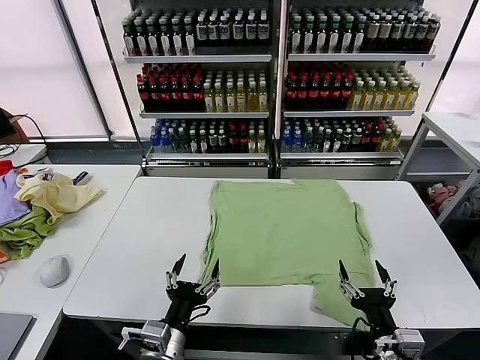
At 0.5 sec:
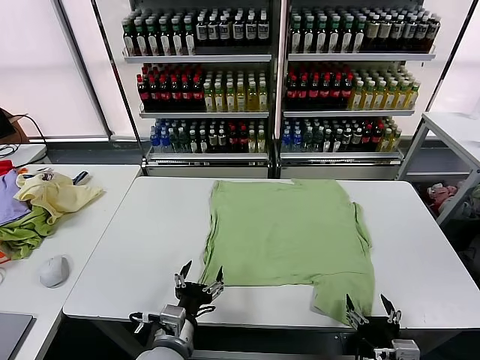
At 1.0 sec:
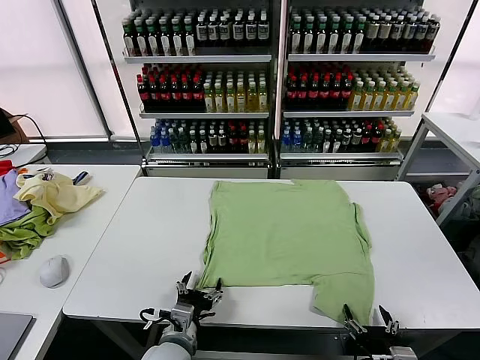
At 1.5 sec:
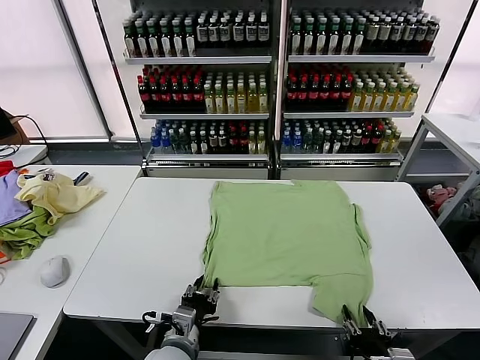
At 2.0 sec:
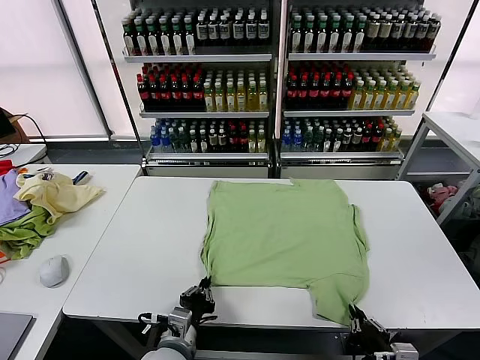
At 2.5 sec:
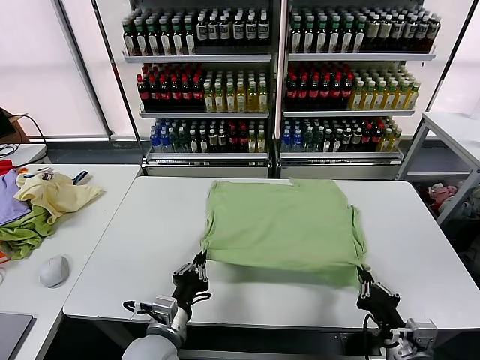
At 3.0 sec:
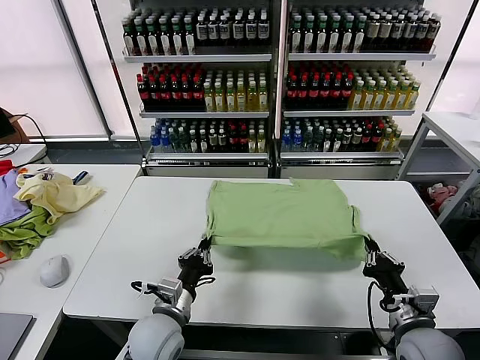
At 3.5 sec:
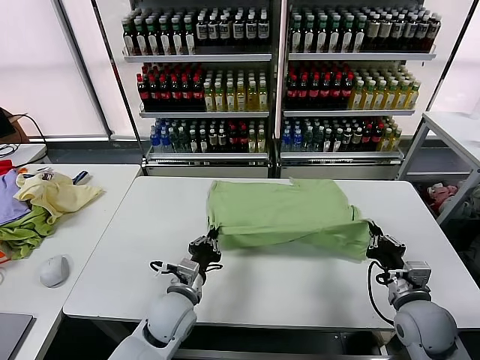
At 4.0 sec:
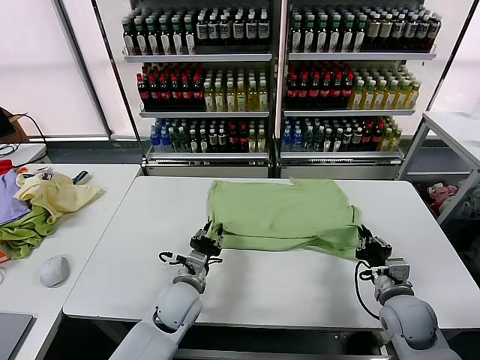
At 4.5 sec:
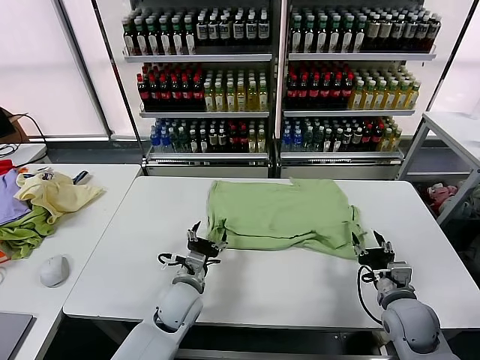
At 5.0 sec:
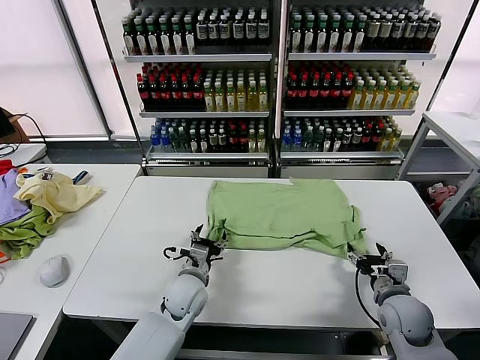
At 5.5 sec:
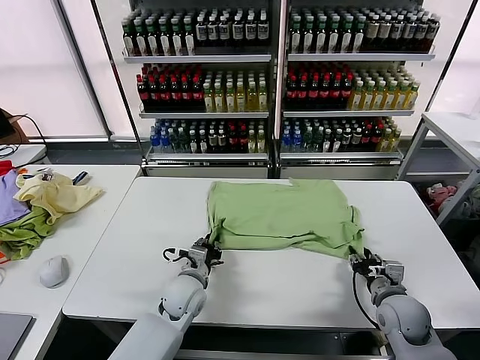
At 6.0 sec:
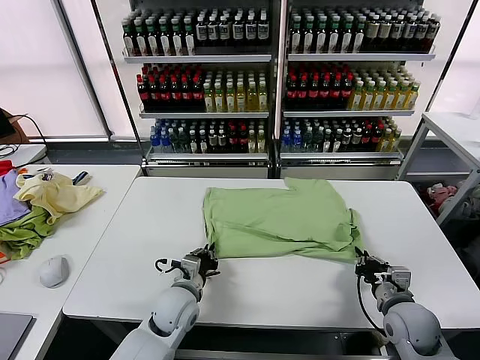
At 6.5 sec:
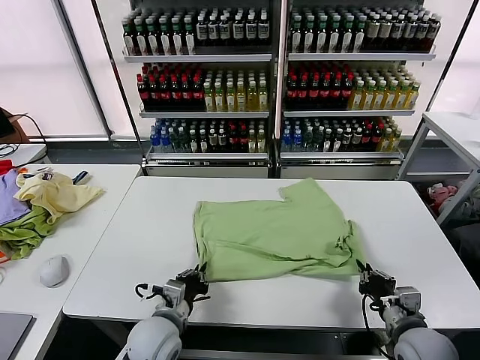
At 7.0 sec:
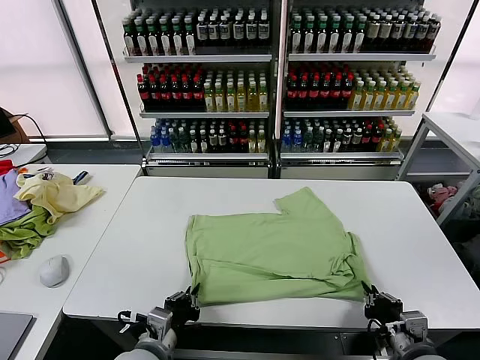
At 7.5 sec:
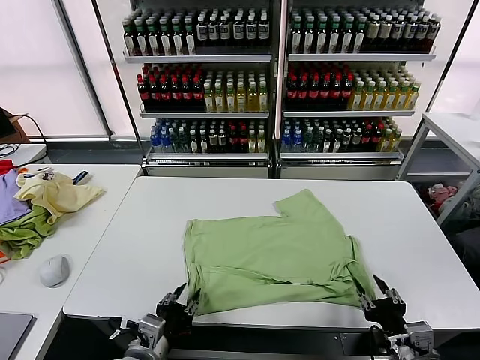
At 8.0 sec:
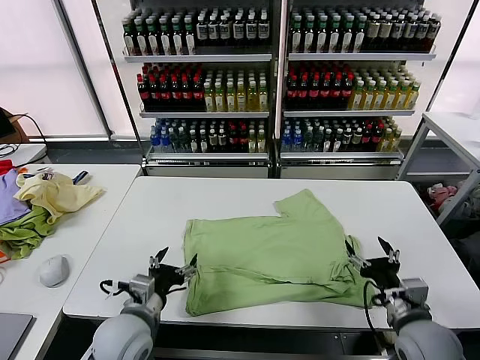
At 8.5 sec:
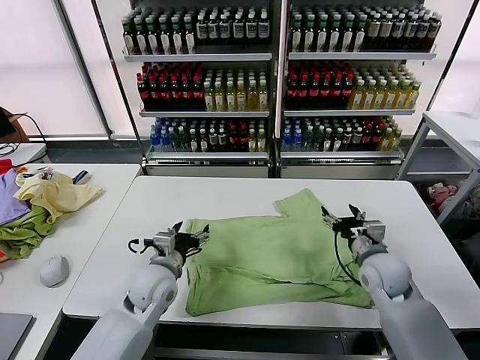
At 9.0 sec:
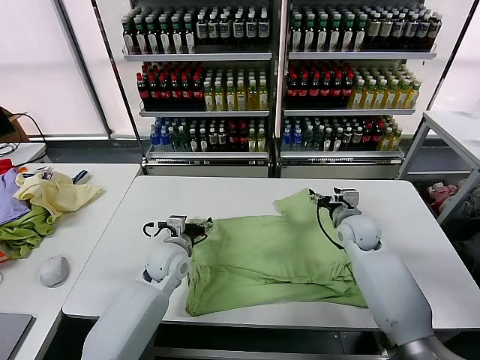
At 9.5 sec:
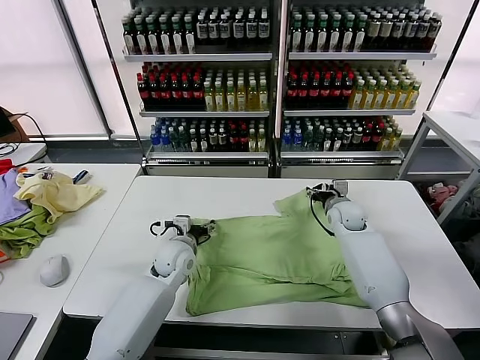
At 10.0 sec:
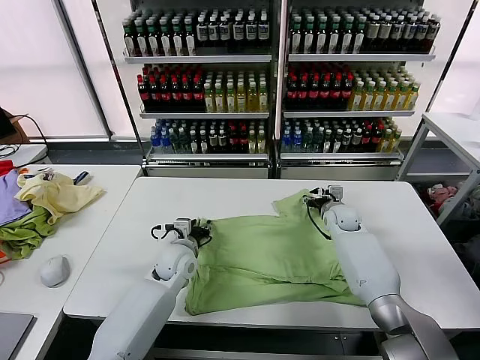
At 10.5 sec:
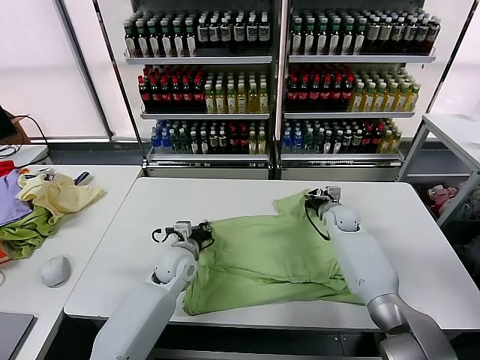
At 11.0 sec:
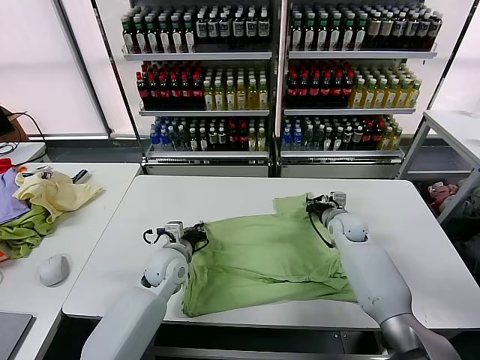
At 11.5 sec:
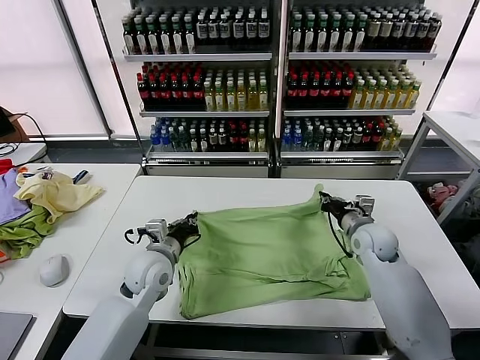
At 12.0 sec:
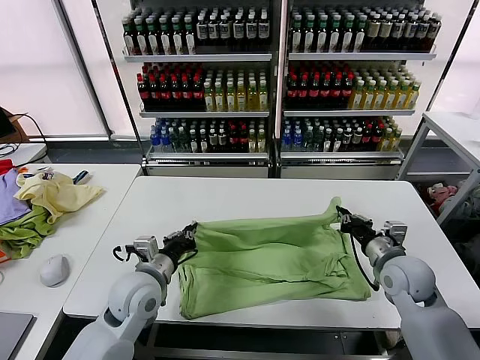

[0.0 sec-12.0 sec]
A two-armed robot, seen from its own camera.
Task of the whole recording: fold and organize the clothes.
Step, 0.0 sec to 2.0 sec: use both grippers simultaneously to clamp the lower edge of the clothing fabric.
Step, 2.5 sec to 4.0 sec: use both grippers to drag the lower edge of the fabric forward and fold it over the upper edge.
Step, 4.5 sec to 7.5 sec: Drag the clothes downward with both gripper.
Step, 8.0 sec to 10.5 sec: use both grippers simultaneously to clamp the upper edge of the clothing fabric.
2.0 sec to 4.0 sec: Both grippers move forward, some 15 cm. The left gripper opens.
4.0 sec to 6.0 sec: The left gripper closes its fingers. The right gripper opens, then closes once more.
6.0 sec to 8.0 sec: The right gripper moves approximately 10 cm backward and comes back, and opens. Meanwhile the left gripper travels backward, upward and to the left by some 15 cm, and opens its fingers.
8.0 sec to 10.0 sec: The left gripper goes approximately 20 cm forward, and closes, while the right gripper travels forward by about 30 cm.
10.0 sec to 12.0 sec: The right gripper travels backward by some 20 cm, and closes up; the left gripper is displaced backward and upward by approximately 15 cm, and closes its fingers.

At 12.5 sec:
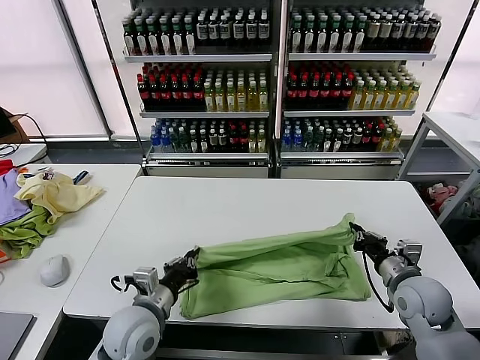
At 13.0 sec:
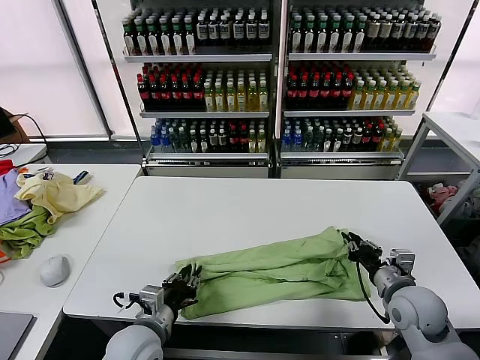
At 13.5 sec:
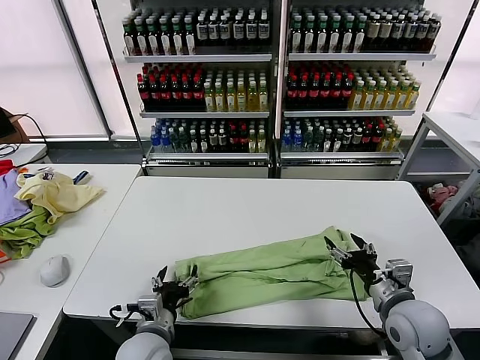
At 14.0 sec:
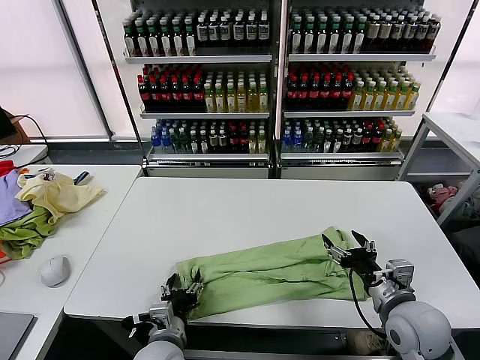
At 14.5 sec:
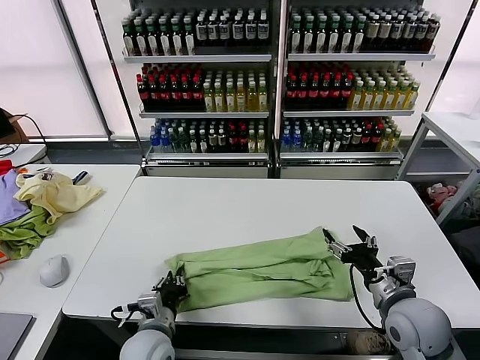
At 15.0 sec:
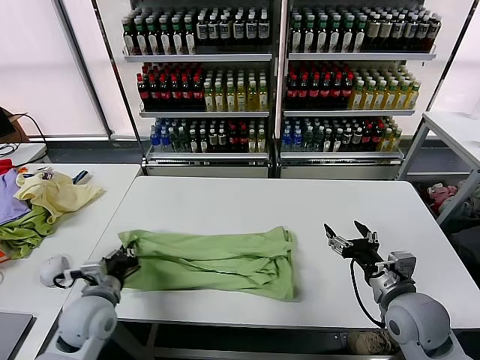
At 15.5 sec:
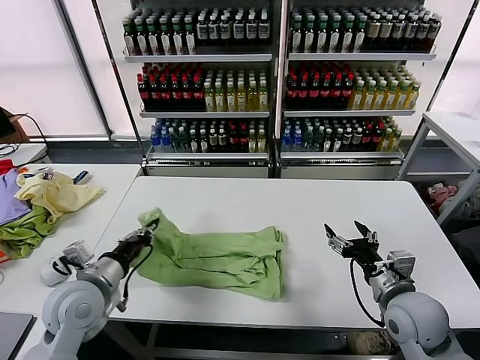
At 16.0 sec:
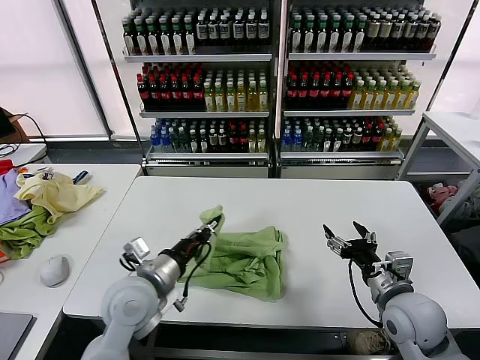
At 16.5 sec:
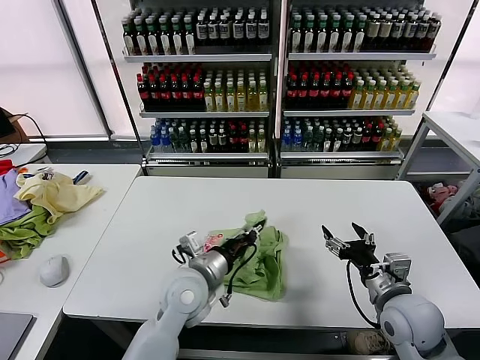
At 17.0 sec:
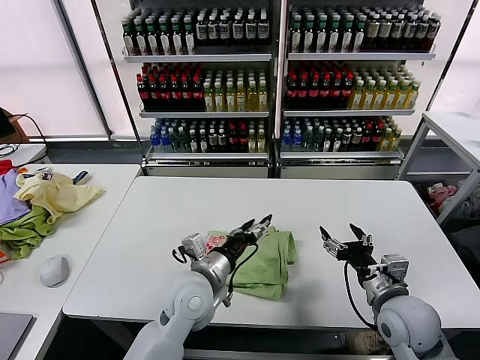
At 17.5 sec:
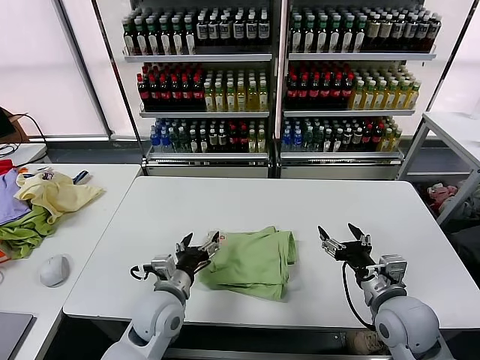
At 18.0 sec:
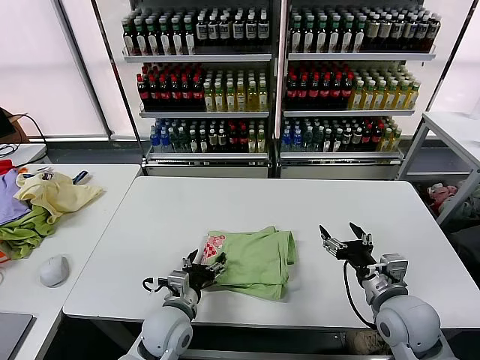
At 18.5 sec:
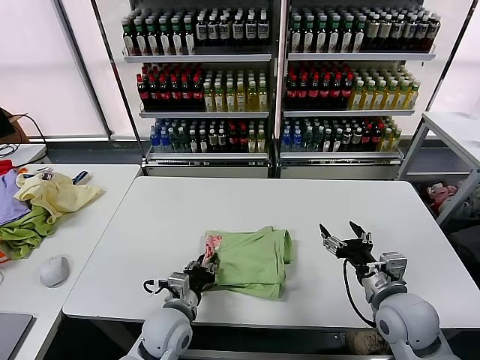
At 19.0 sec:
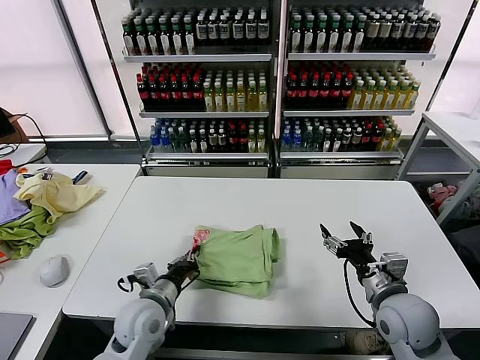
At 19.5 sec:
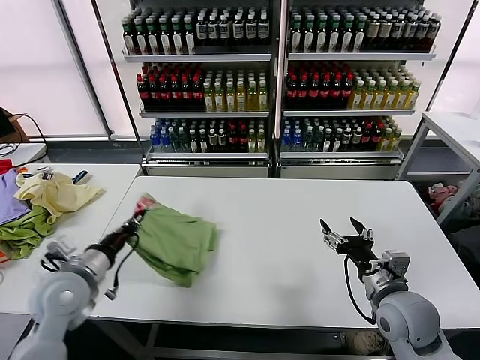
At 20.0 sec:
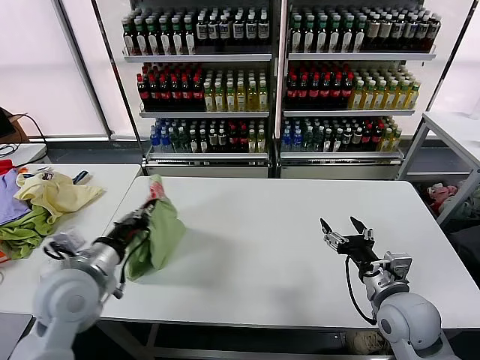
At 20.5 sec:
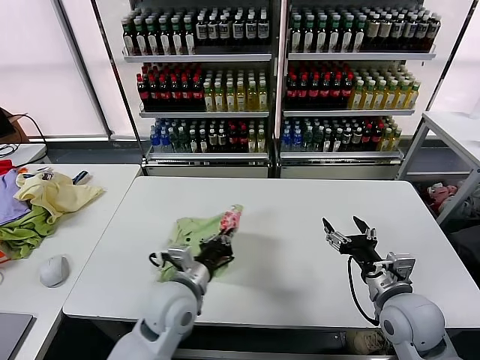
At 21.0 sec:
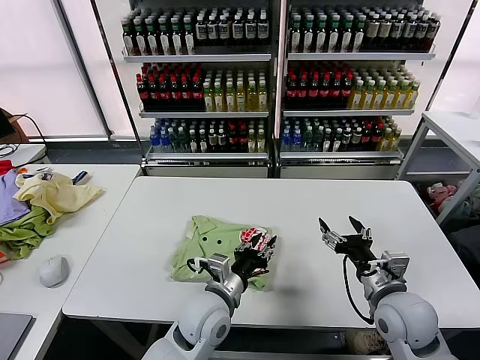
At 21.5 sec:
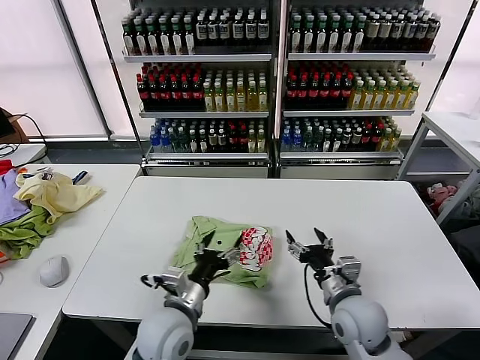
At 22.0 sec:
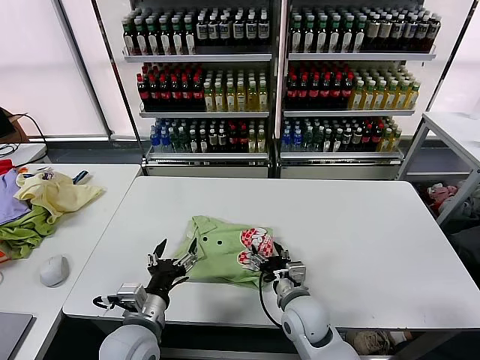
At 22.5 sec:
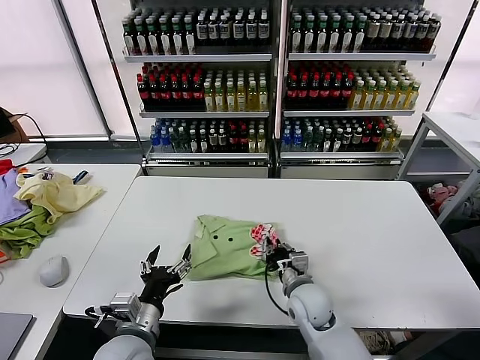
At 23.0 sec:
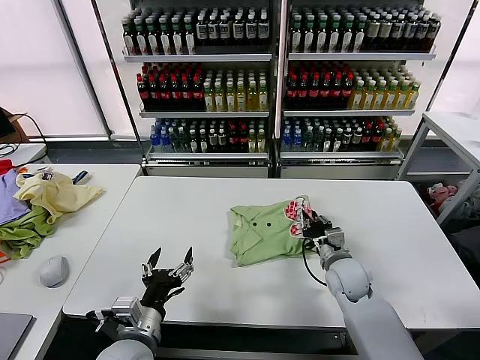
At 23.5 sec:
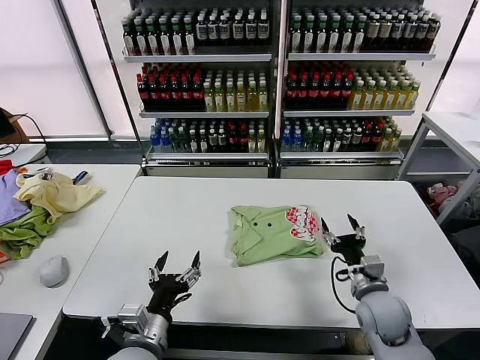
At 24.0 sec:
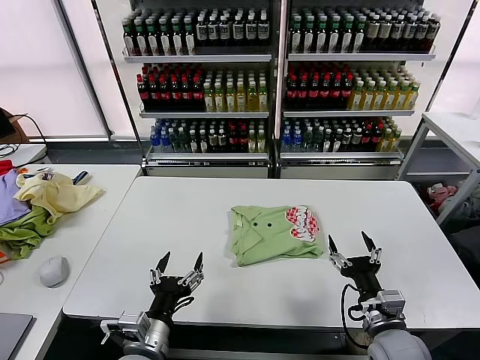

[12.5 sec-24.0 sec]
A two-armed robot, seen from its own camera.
Task of the whole recording: fold and organize the clothes.
Step, 13.5 sec to 14.5 sec: use the left gripper to clamp the left edge of the fabric.
Step, 15.0 sec to 16.5 sec: use the left gripper to drag the left edge of the fabric to the left and folds it over the right edge.
Step, 17.0 sec to 21.0 sec: Flip the folded clothes over with left gripper.
Step, 21.5 sec to 23.0 sec: Drag the clothes to the center of the table.
12.5 sec to 14.5 sec: The right gripper moves backward, approximately 5 cm, and opens, while the left gripper heads downward, covering about 5 cm, and opens and closes again.
14.5 sec to 16.5 sec: The left gripper moves upward and forward, some 15 cm, and moves approximately 10 cm to the left and comes back.
16.5 sec to 18.5 sec: The left gripper travels downward by approximately 10 cm, and opens, then closes again.
18.5 sec to 20.0 sec: The left gripper heads upward and to the left, covering about 25 cm, and closes.
20.0 sec to 22.0 sec: The right gripper goes approximately 20 cm to the left and downward. Meanwhile the left gripper travels to the right, downward and backward by roughly 15 cm, and opens.
22.0 sec to 24.0 sec: The left gripper travels backward by approximately 5 cm. Meanwhile the right gripper heads to the right and backward, covering approximately 15 cm, and closes, then reopens.

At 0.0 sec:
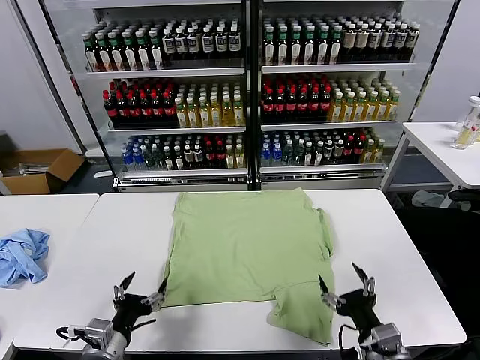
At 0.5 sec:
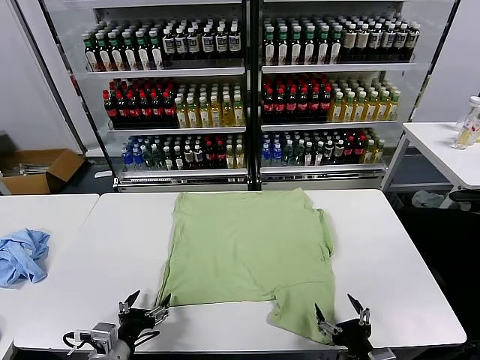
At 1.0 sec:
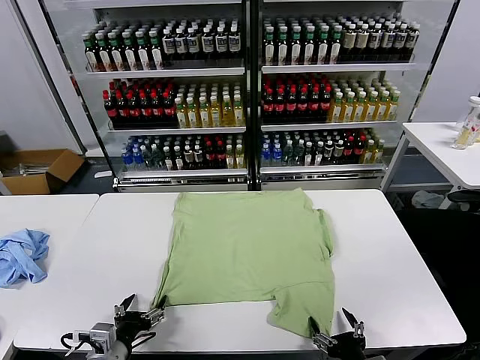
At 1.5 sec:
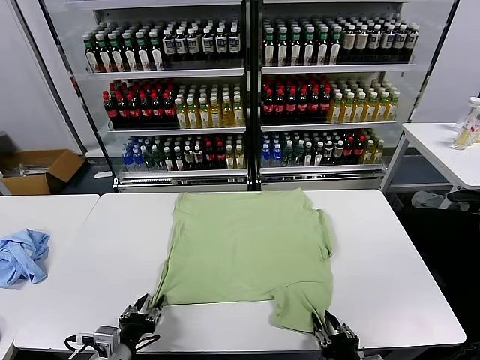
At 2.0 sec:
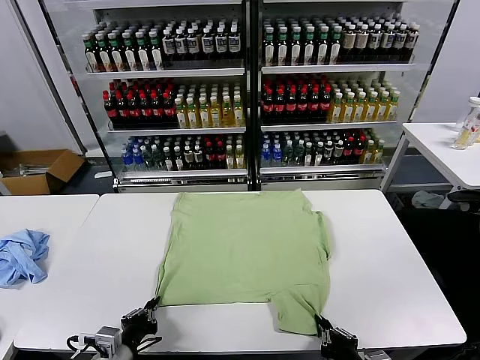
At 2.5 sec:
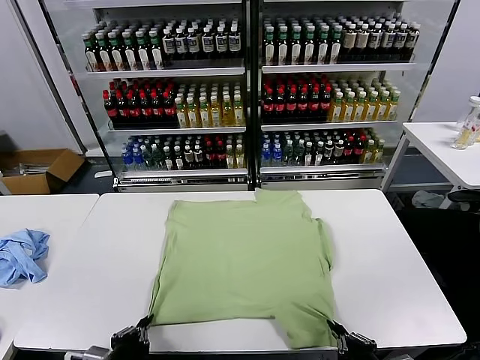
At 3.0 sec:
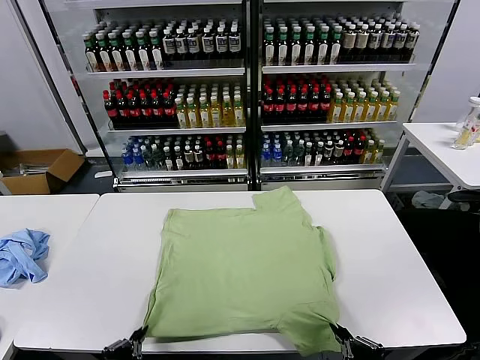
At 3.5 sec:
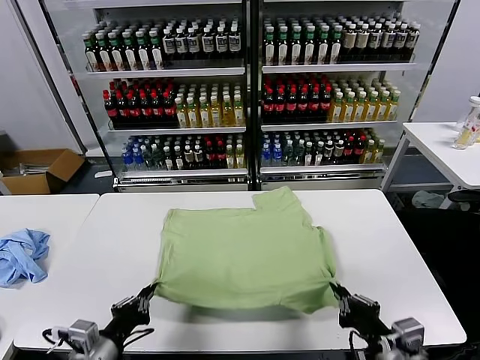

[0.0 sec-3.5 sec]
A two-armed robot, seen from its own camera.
Task of the whole recording: fold and organize the clothes.
Step, 0.0 sec to 2.5 sec: use both grippers simultaneously to clamp the lower edge of the clothing fabric.
2.0 sec to 3.5 sec: The left gripper travels upward by some 5 cm. The right gripper heads upward and forward, covering about 10 cm.
